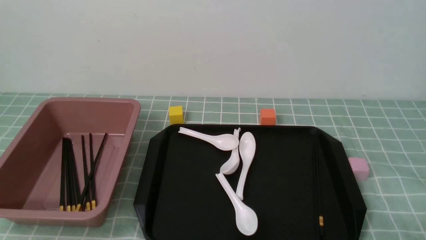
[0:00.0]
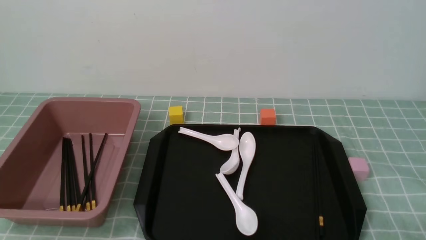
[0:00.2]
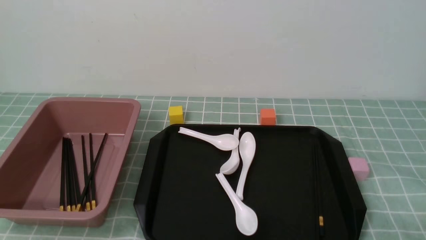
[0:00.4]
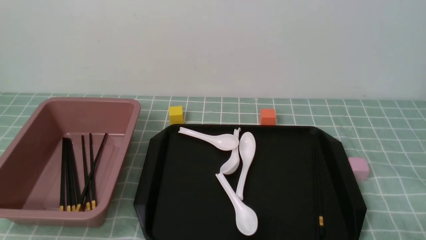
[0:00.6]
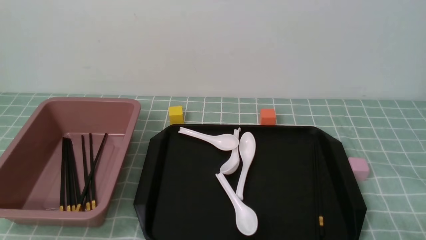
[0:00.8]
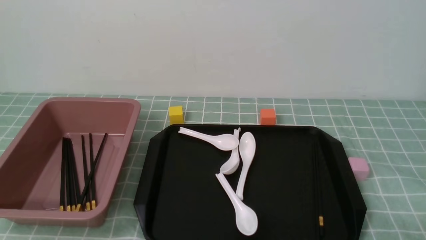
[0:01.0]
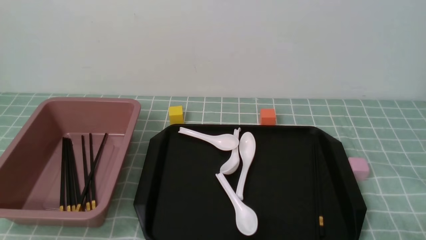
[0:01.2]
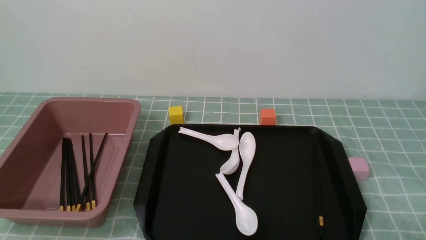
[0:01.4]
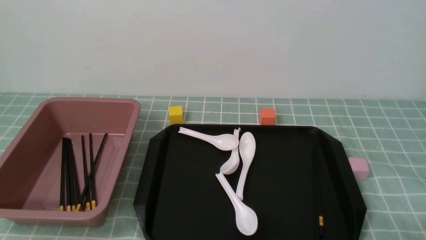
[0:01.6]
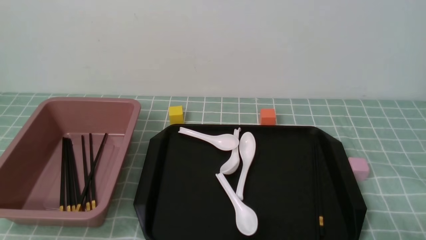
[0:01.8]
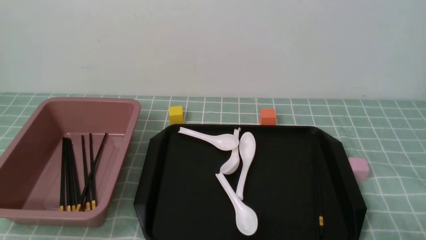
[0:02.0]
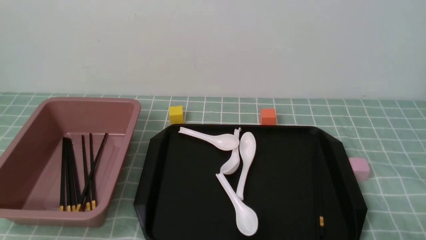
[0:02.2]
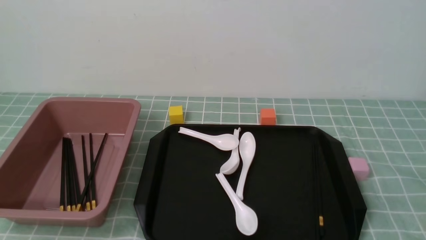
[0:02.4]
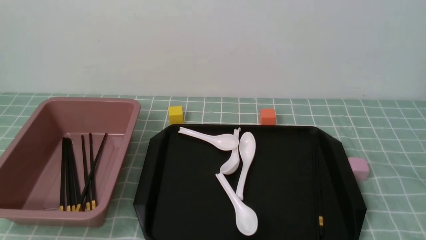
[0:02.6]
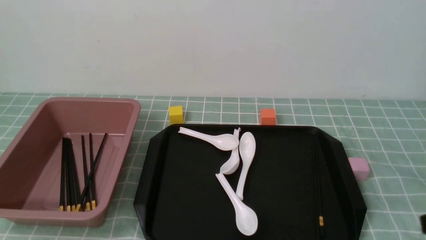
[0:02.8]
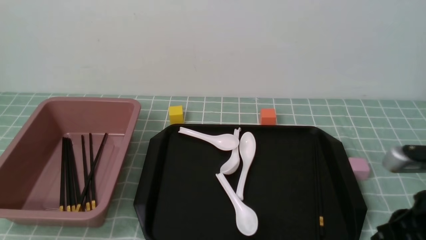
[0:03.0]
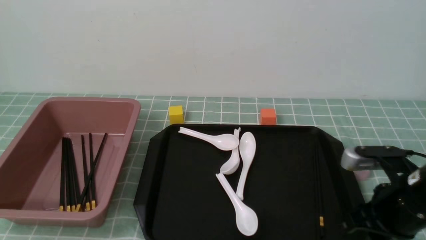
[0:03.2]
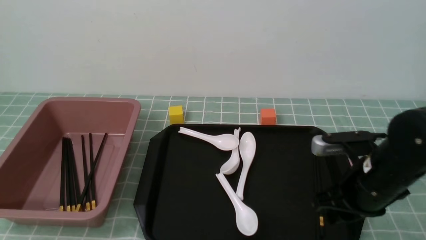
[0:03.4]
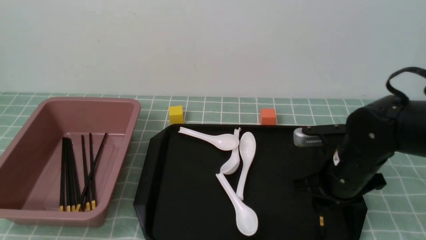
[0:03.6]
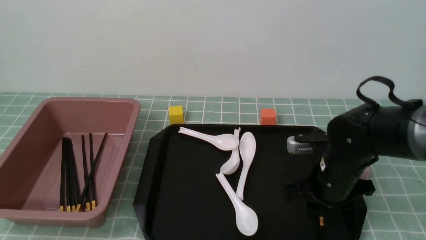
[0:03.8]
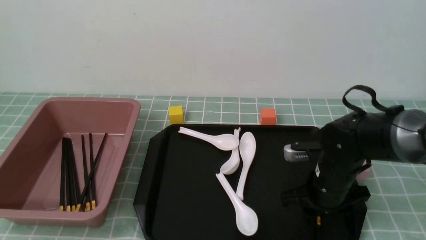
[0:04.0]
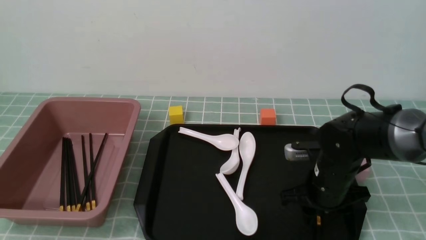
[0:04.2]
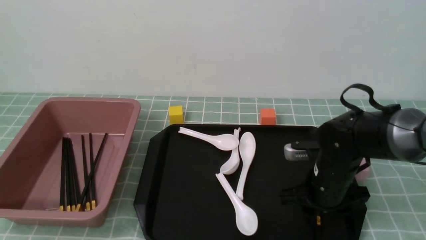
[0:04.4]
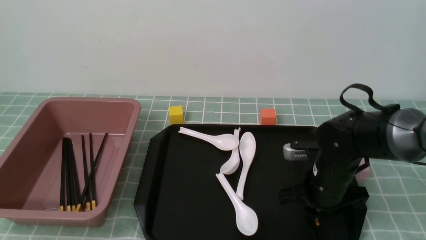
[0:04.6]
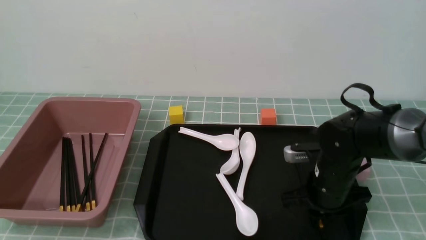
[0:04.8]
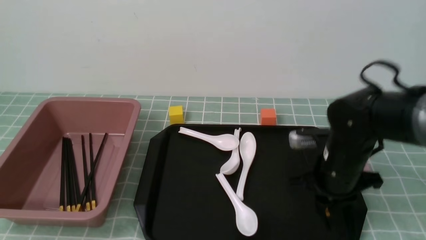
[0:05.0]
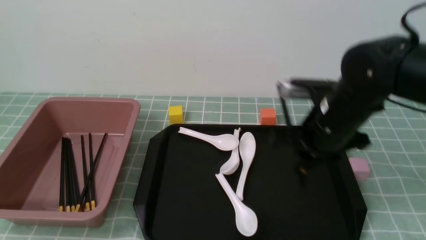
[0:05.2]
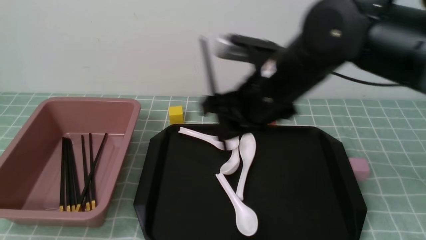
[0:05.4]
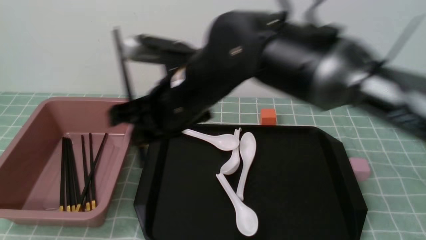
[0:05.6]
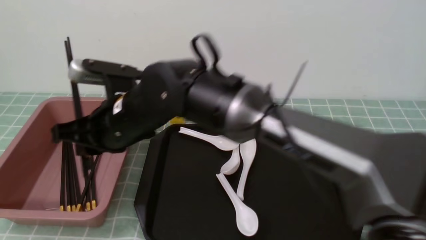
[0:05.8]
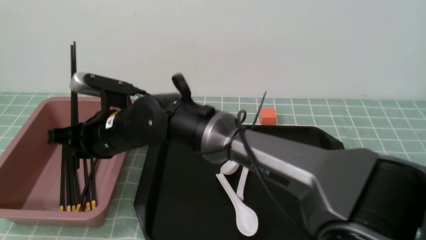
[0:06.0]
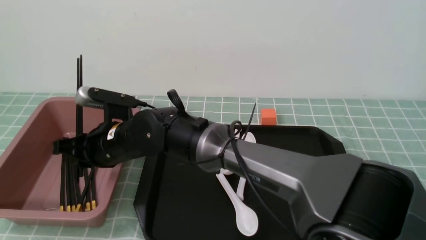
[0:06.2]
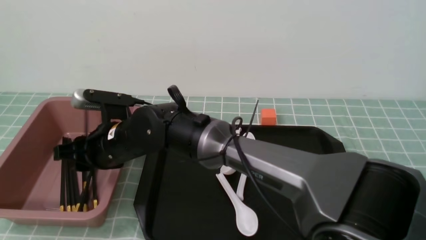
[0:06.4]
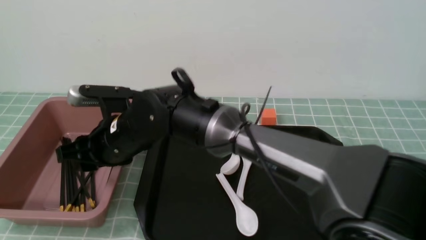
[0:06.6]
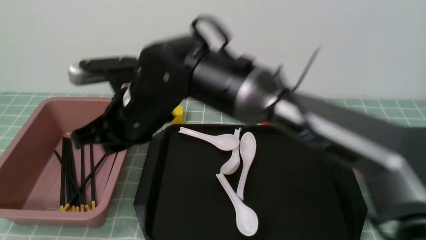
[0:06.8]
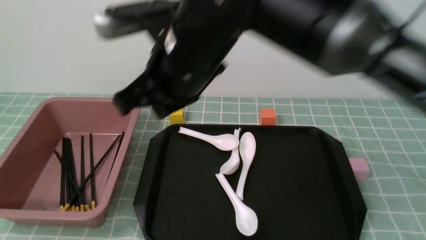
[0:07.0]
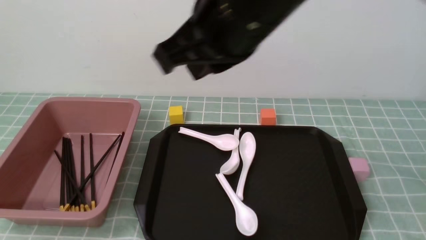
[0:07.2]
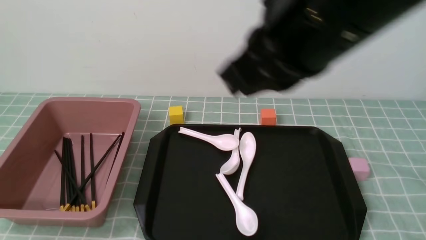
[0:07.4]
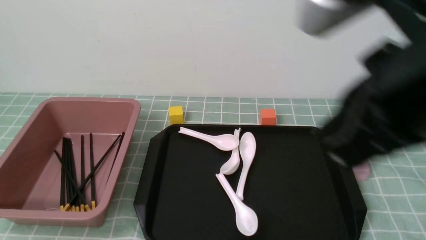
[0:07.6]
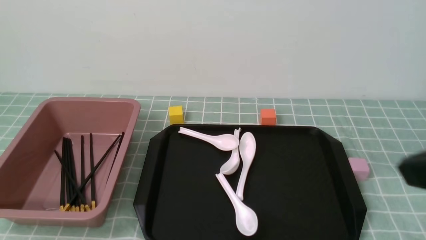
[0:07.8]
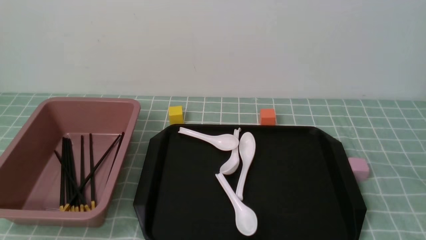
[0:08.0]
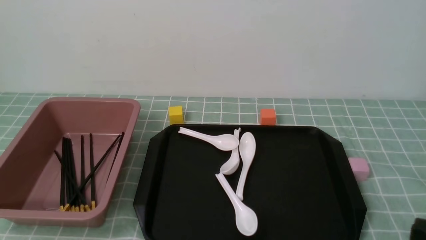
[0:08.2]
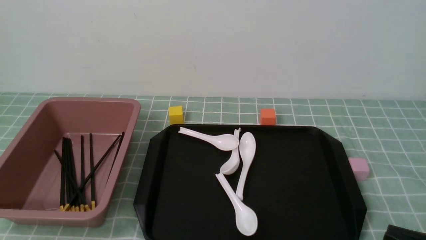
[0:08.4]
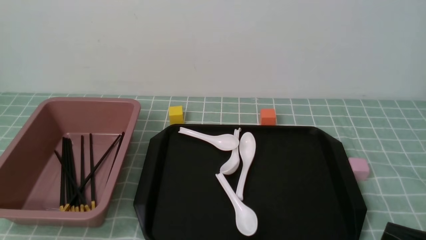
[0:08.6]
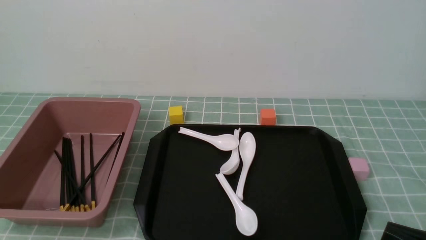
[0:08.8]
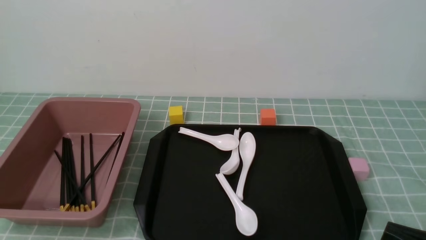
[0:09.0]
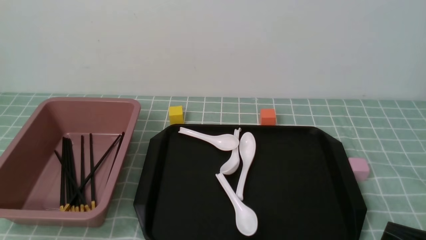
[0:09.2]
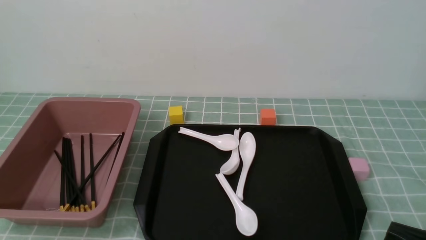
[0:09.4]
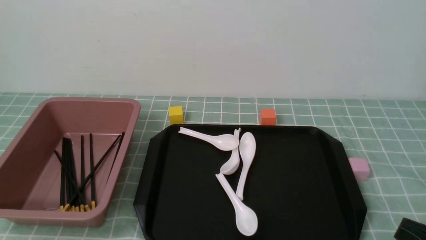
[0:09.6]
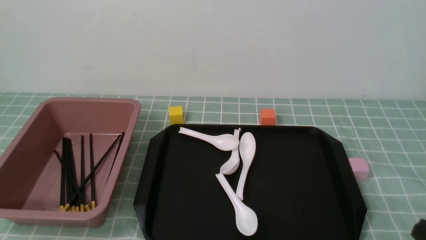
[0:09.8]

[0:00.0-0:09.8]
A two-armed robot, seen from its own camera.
Step, 0:00.0 to 0:05.2: use the right arm to grab a pair of chopsticks.
Step, 0:05.4 to 0:06.8: use the right arm to put the chopsticks into the lunch box.
0:00.0 to 0:01.4: The two grippers keep their place.
0:02.8 to 0:04.2: The right gripper travels forward, downward and to the left by roughly 25 cm, and opens up.
0:04.2 to 0:05.6: The right gripper heads to the left and upward, covering some 25 cm, and closes.
0:05.6 to 0:07.0: The right gripper travels upward by some 10 cm, and opens, then closes once more.
0:07.0 to 0:08.4: The right gripper moves to the right, backward and downward, about 35 cm.

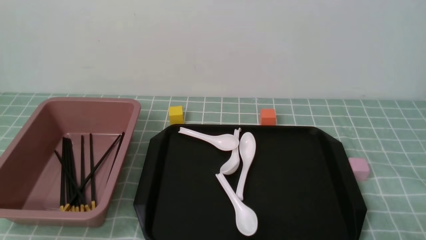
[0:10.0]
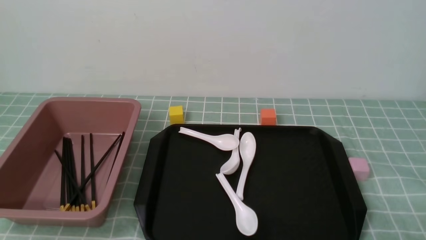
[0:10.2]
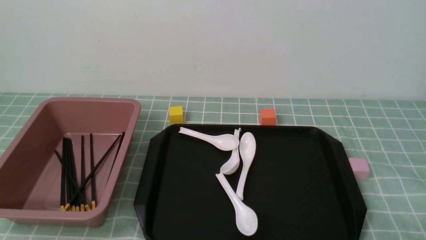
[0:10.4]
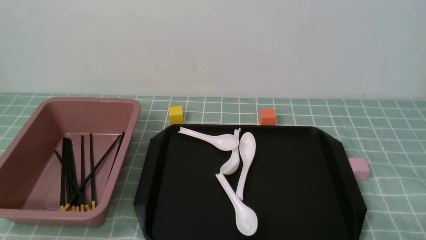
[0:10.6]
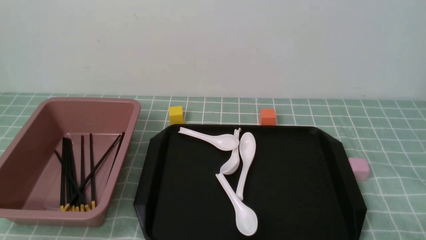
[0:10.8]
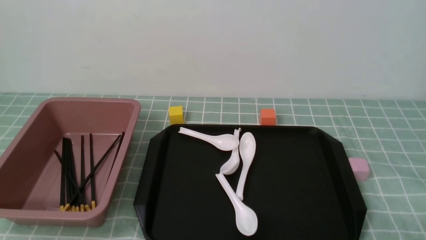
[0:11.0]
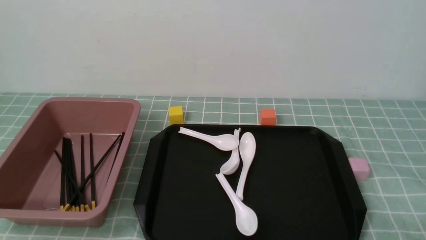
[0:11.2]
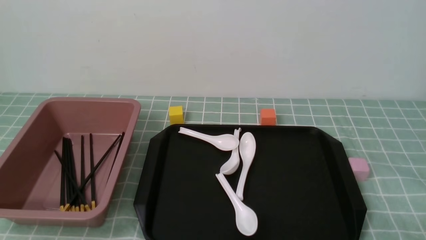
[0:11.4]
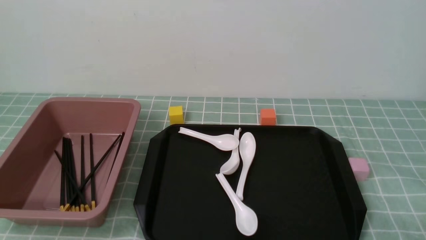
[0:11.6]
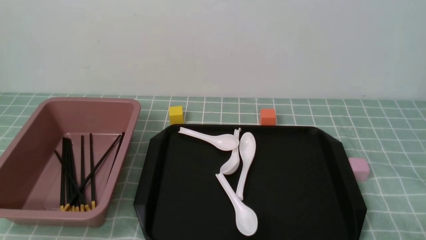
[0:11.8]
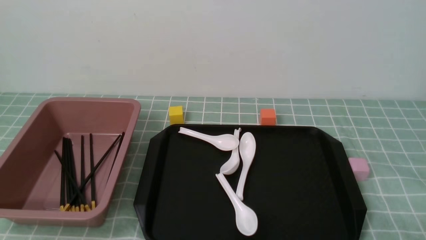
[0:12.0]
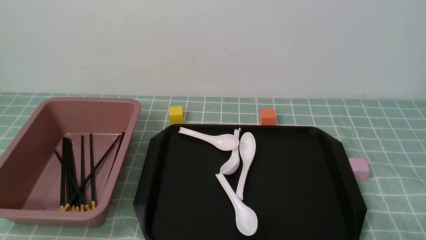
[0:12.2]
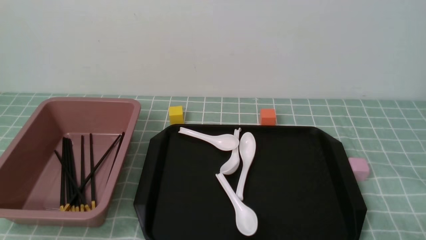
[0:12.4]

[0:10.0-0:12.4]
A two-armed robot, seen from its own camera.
0:11.2 to 0:12.4: The two grippers keep their place.

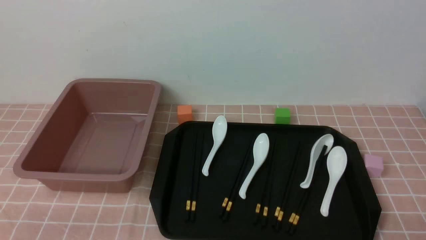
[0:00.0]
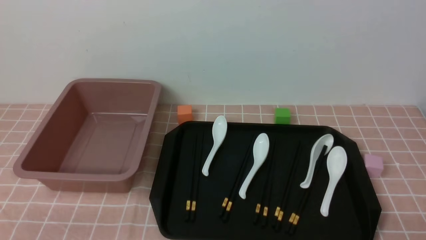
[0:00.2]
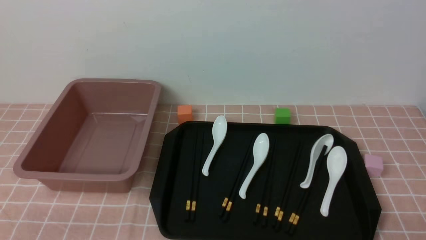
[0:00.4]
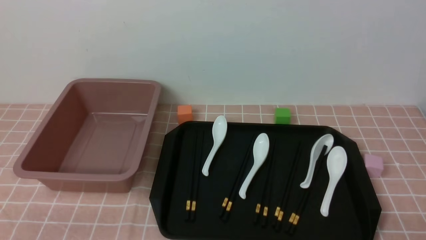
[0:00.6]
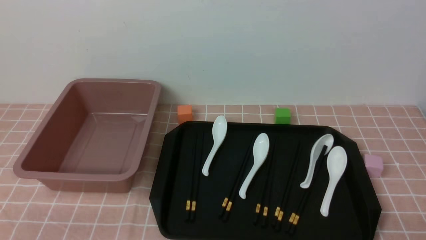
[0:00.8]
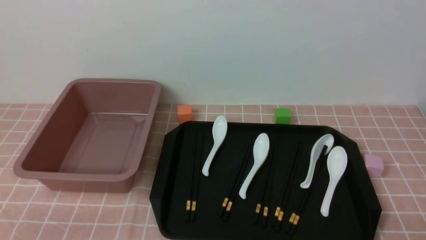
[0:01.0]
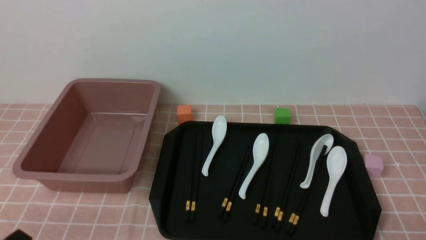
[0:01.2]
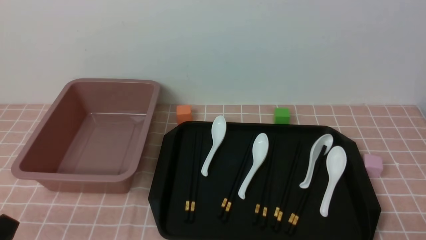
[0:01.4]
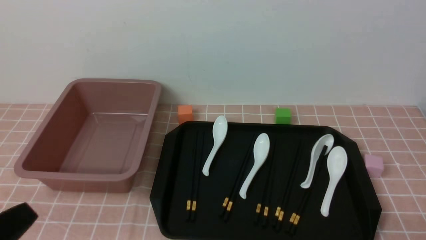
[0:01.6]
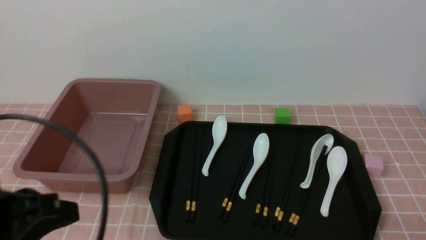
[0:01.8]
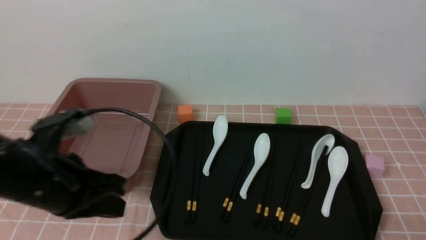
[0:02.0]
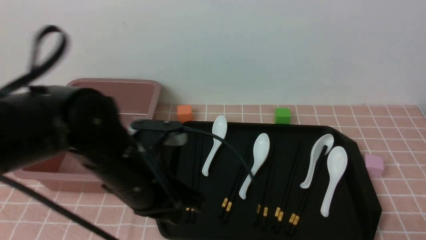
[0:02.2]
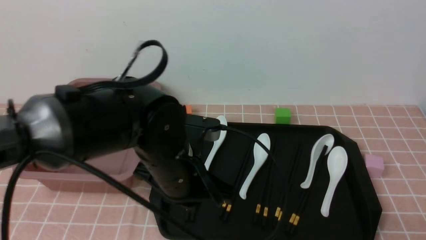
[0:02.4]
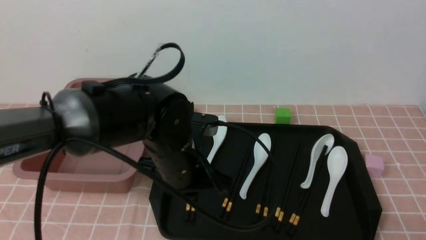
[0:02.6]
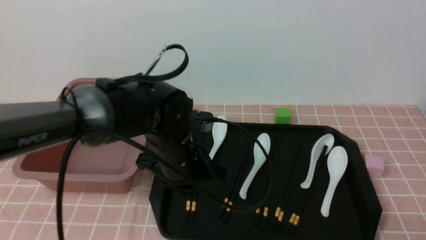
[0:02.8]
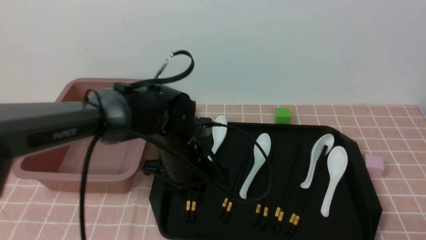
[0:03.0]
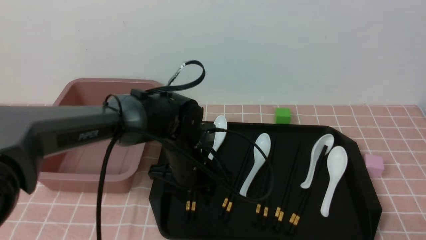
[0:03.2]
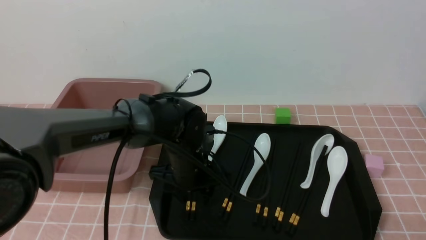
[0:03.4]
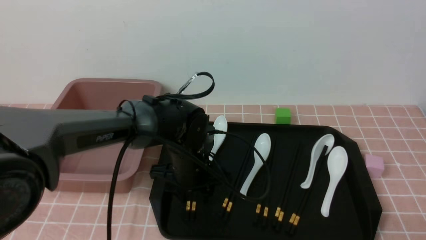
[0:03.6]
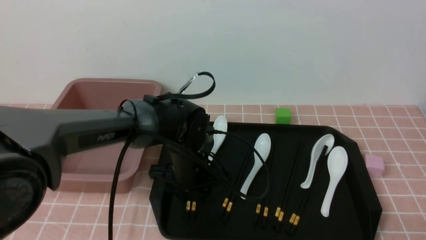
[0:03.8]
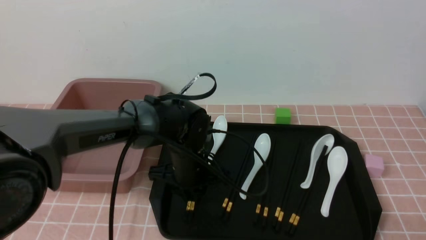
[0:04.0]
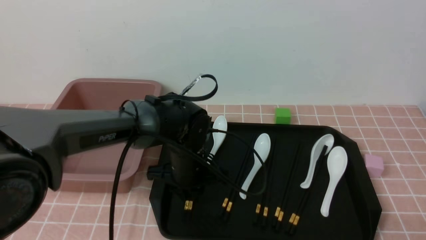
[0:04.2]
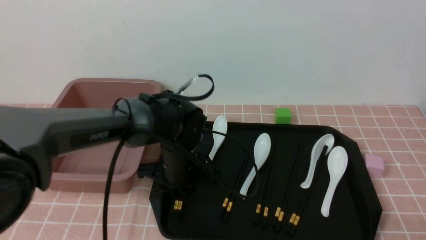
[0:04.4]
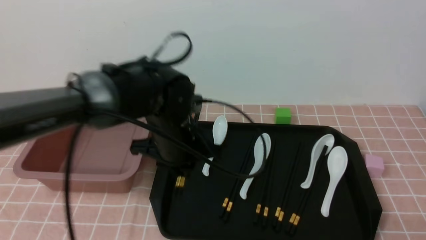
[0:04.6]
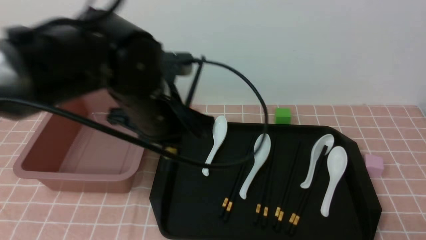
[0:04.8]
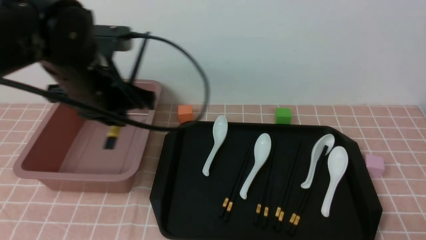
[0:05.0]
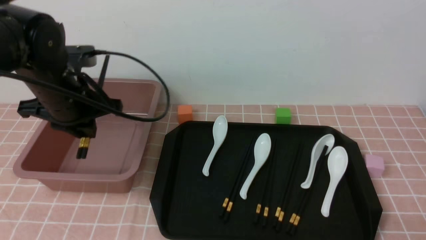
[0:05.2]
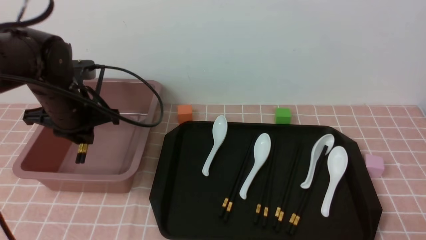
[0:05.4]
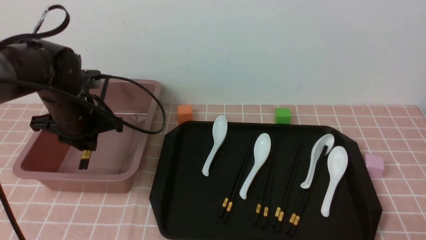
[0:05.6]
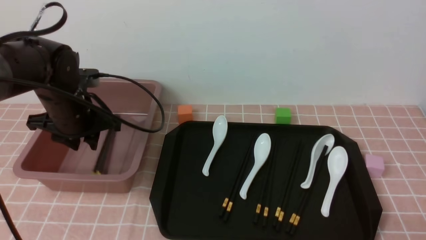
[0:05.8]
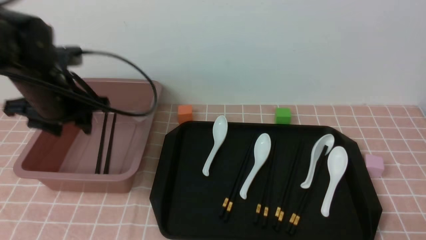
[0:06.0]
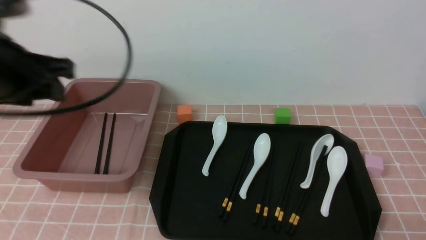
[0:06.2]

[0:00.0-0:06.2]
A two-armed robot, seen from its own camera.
Step, 0:00.0 to 0:04.6: use the left arm to grab a pair of chopsticks.
Step, 0:05.0 to 0:06.0: use the left arm to put the chopsticks into the lunch box.
0:00.0 to 0:01.6: The left gripper shifts roughly 10 cm upward, and closes its fingers.
0:01.6 to 0:03.2: The left gripper travels forward and to the right by approximately 35 cm, and opens.
0:03.2 to 0:04.6: The left gripper goes some 10 cm upward, and closes up.
0:04.6 to 0:06.2: The left gripper heads to the left, upward and backward, covering some 25 cm, and opens its fingers.
